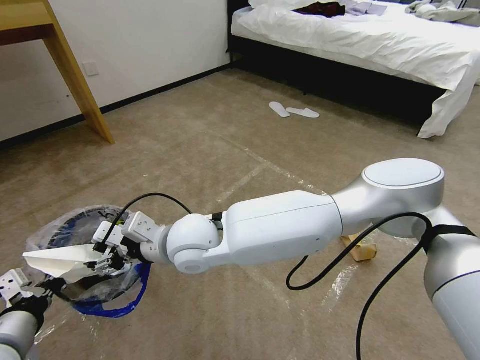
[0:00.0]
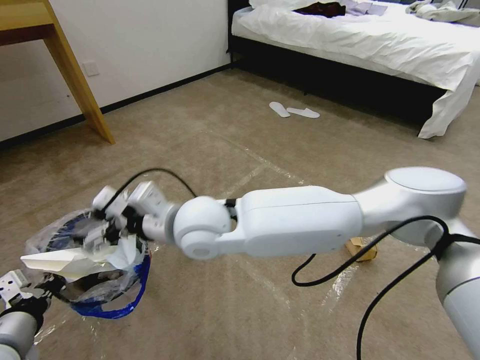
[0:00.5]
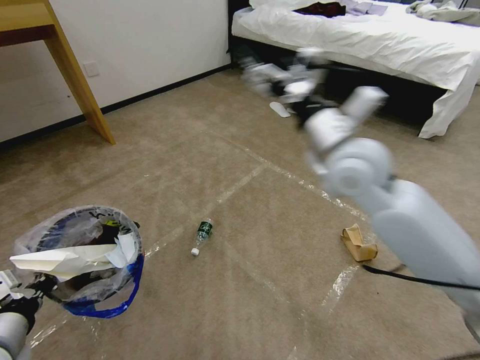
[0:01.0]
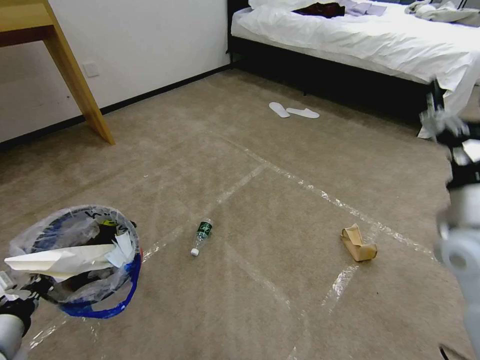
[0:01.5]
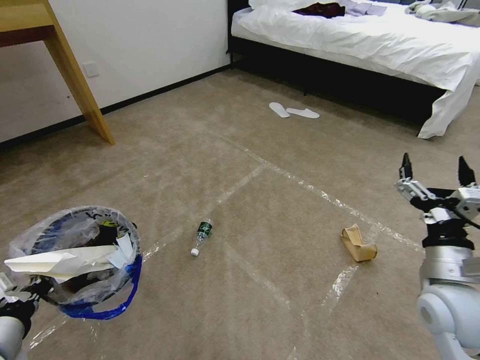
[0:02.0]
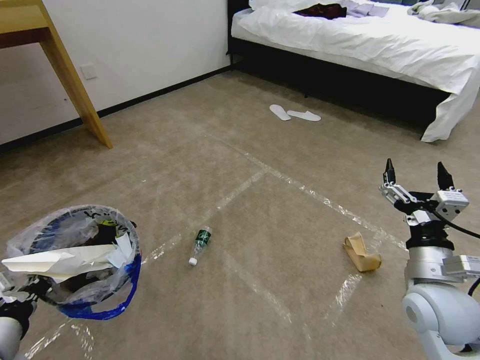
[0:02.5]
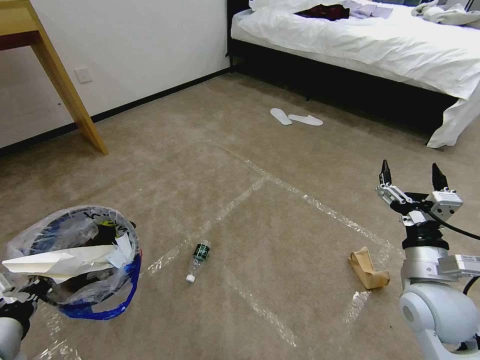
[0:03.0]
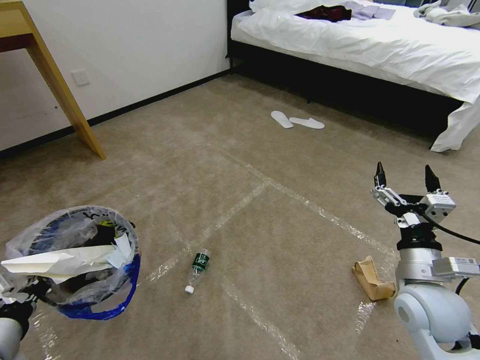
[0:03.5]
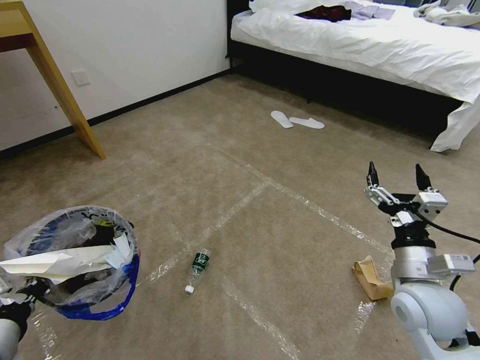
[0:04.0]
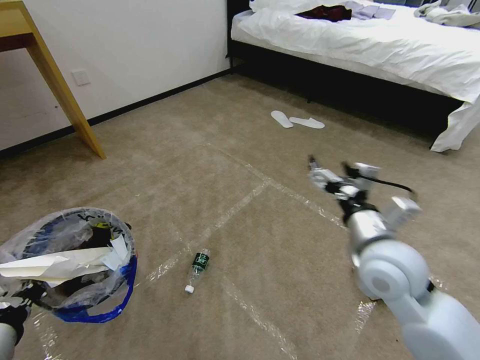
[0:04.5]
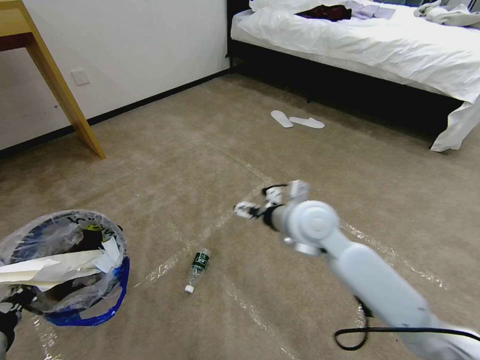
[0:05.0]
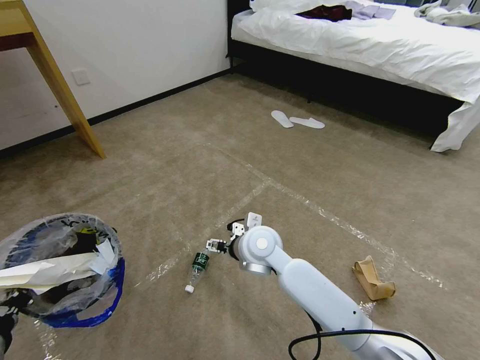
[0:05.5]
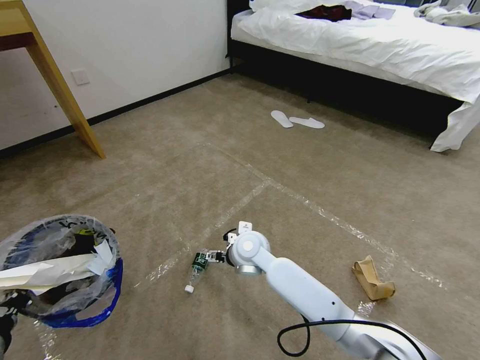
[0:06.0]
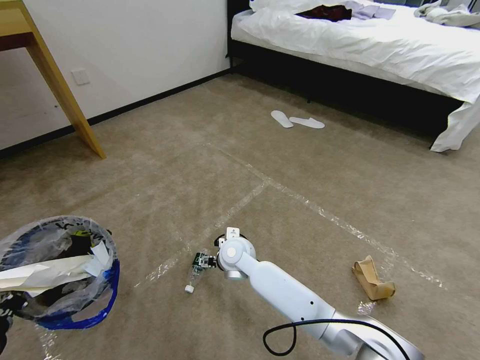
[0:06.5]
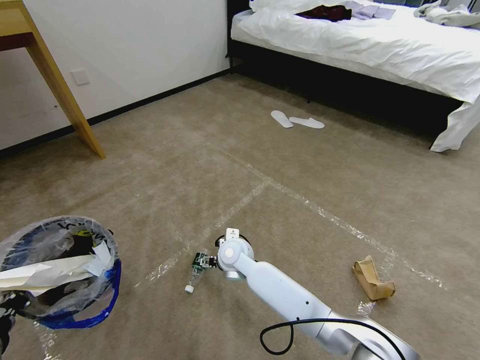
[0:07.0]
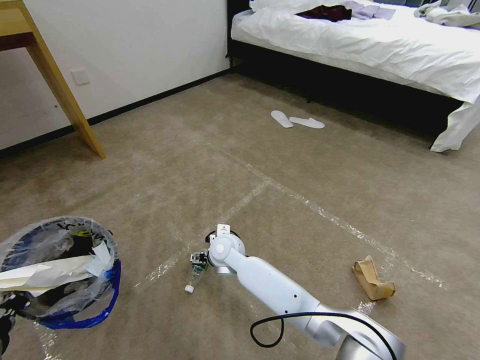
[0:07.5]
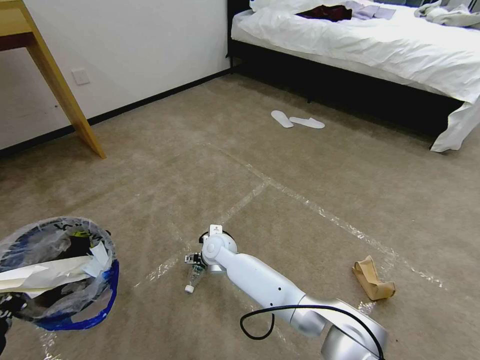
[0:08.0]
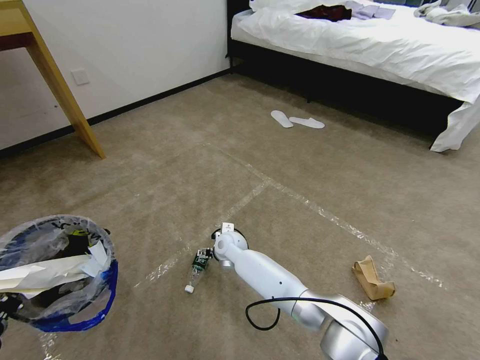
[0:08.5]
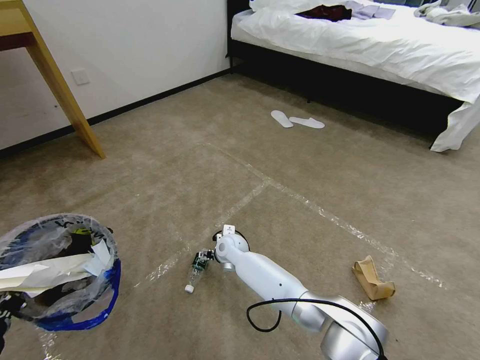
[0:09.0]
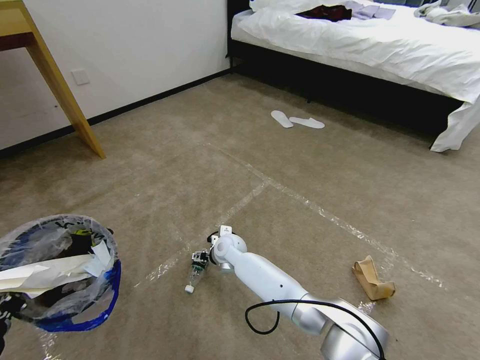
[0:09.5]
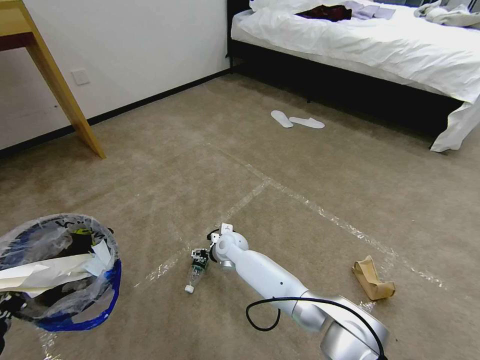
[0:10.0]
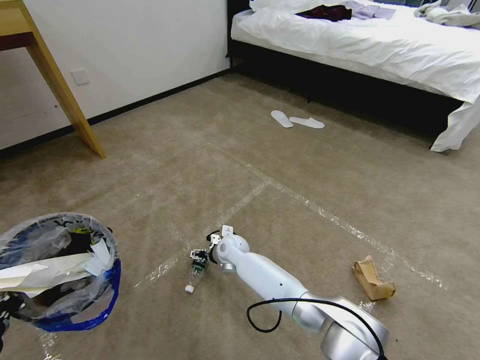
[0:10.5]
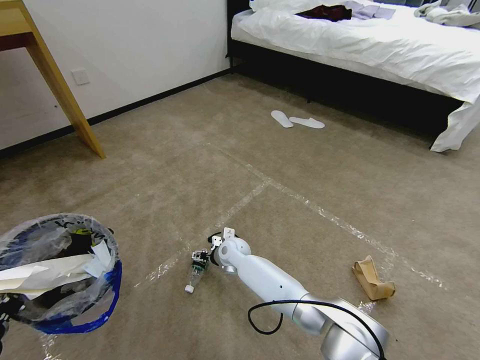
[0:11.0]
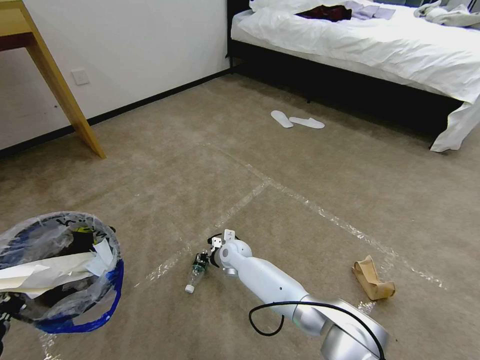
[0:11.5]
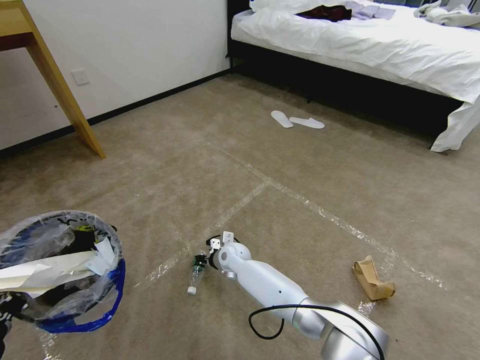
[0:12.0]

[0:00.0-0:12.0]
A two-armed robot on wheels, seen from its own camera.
Task of the whole recording: Pick up the trash bin and place the garbage on the floor into it.
0:00.0 to 0:02.0: The right gripper moves to the right, about 40 cm.
0:04.0 to 0:06.0: The right gripper is displaced to the left and forward by approximately 35 cm.
0:06.0 to 0:08.0: The right gripper goes about 10 cm to the left and downward.
0:08.0 to 0:10.0: The right gripper moves approximately 5 cm.
0:10.0 to 0:12.0: The right gripper closes its fingers.

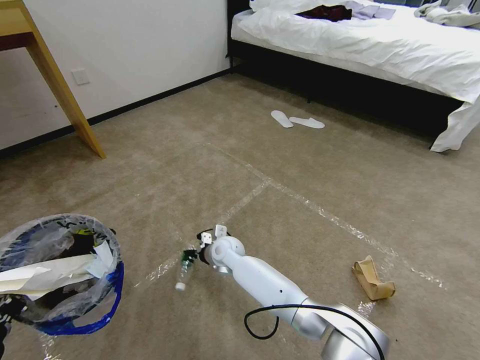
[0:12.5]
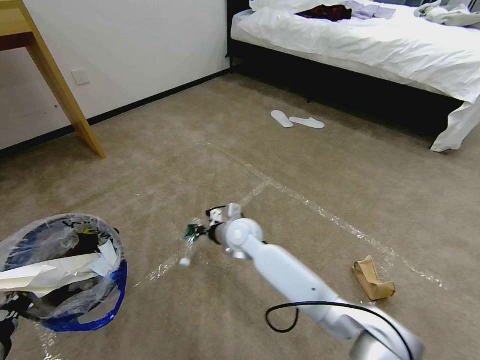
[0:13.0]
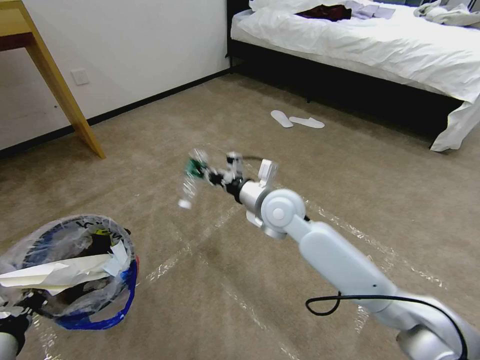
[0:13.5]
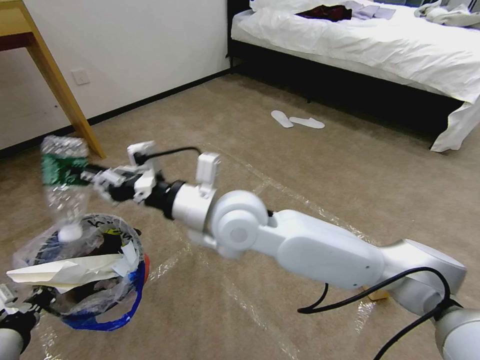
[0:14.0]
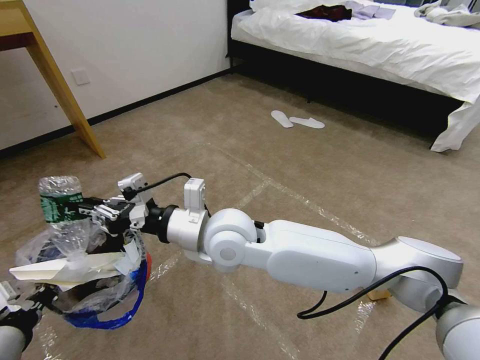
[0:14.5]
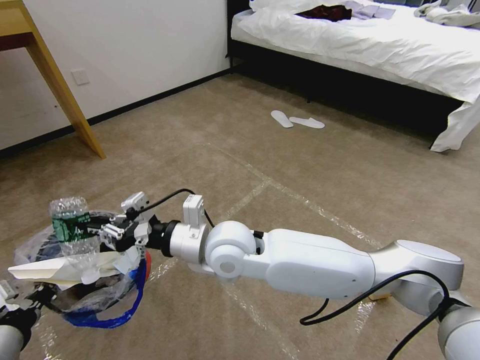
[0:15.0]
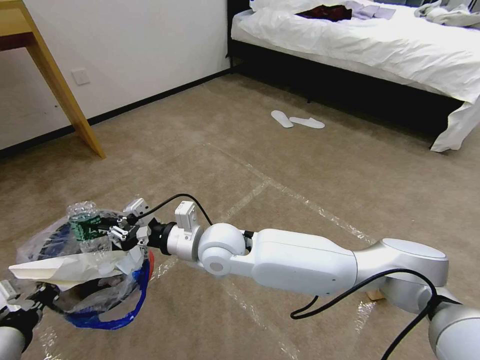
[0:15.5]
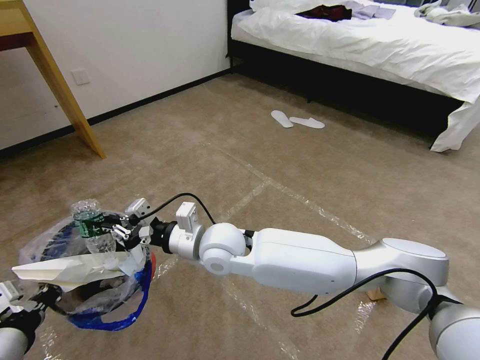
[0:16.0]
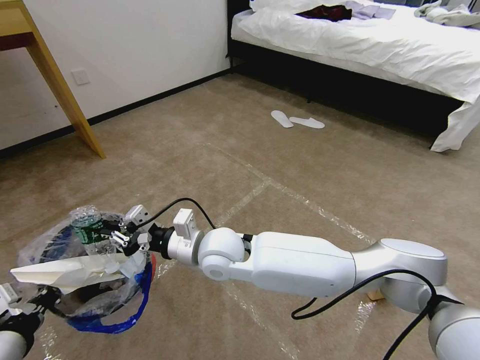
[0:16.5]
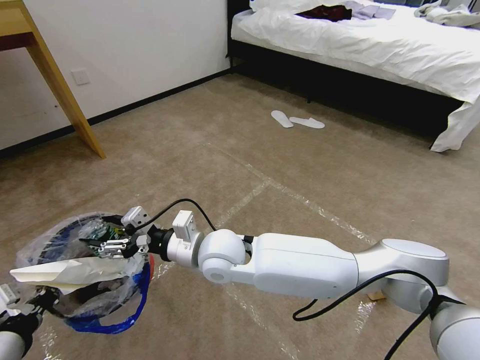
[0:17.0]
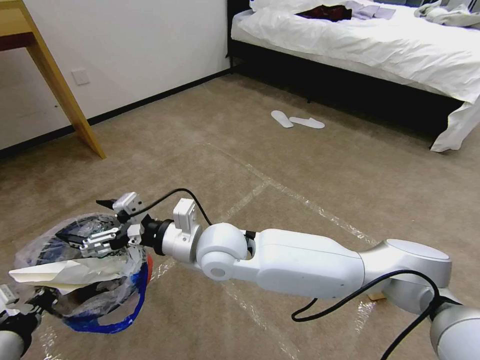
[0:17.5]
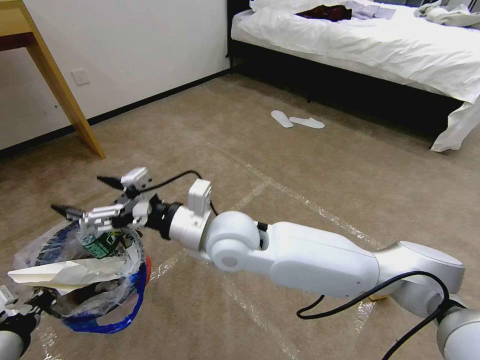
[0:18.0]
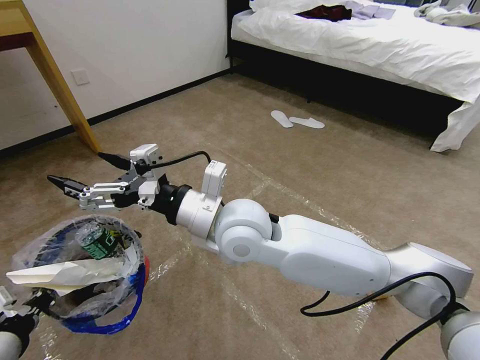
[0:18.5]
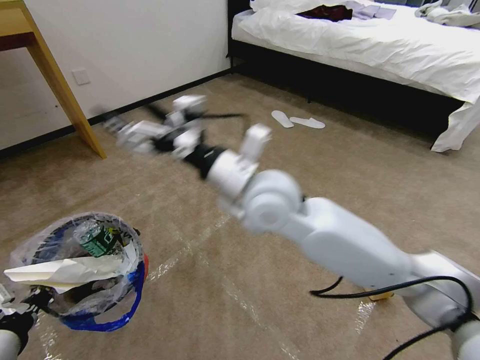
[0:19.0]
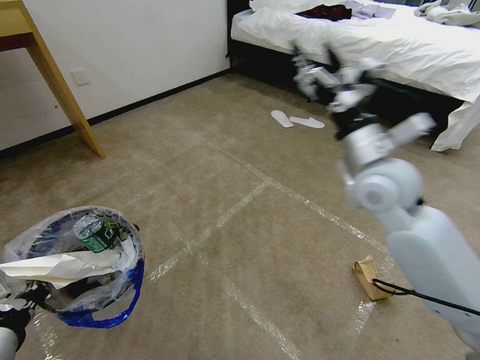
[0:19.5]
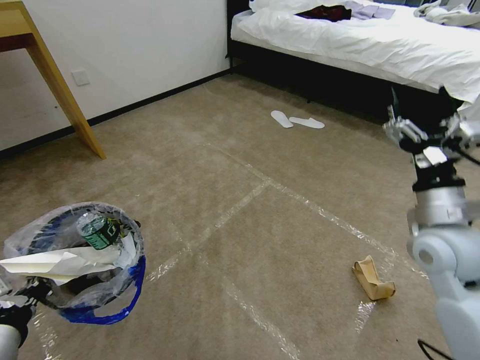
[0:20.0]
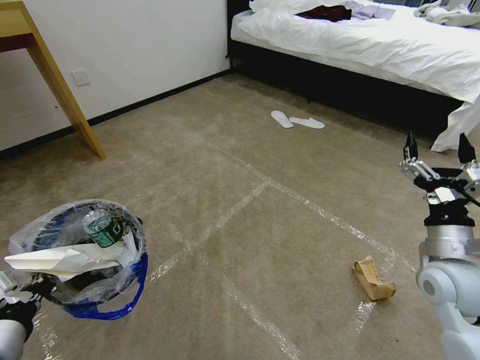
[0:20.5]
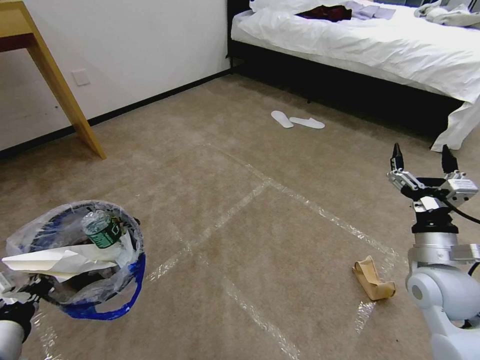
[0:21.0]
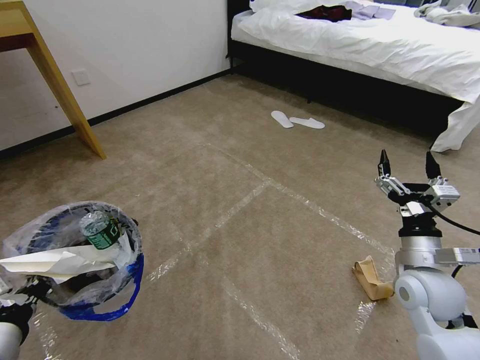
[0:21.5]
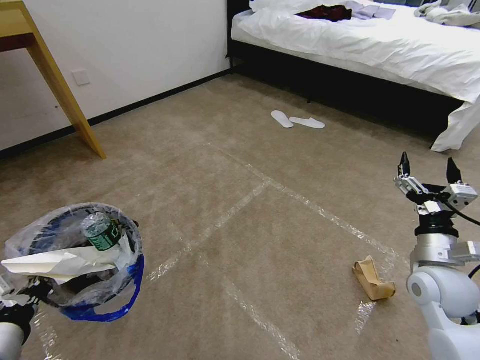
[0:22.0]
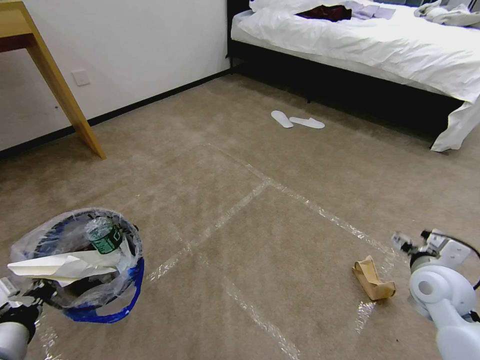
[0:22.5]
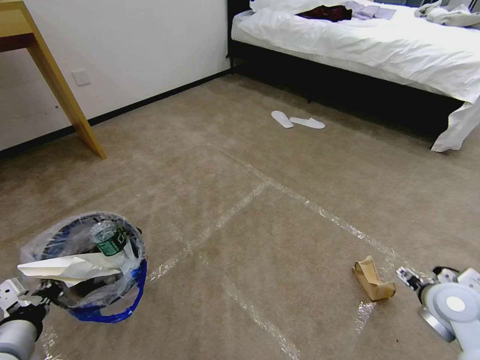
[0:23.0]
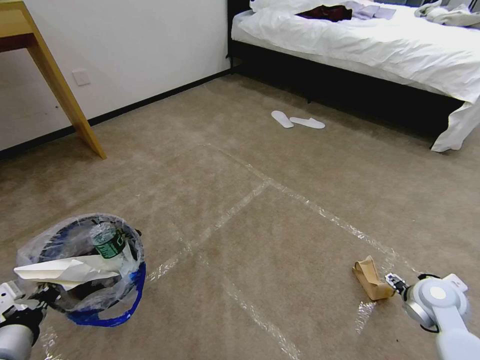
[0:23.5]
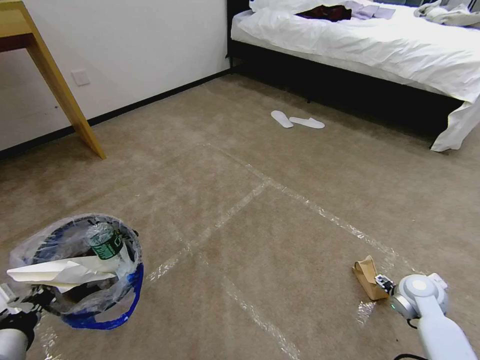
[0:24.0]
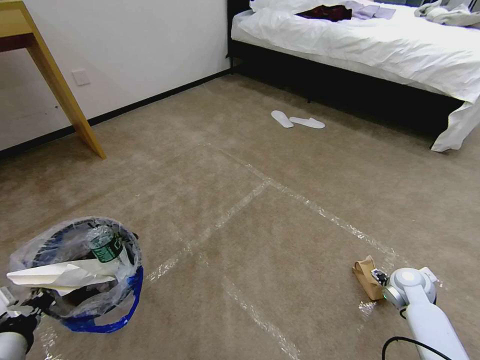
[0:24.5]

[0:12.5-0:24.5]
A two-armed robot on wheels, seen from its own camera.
Task of the whole recording: Pick up the trash bin and place the garbage on the floor into it.
0:12.5 to 0:14.5: The right gripper moves upward and backward, some 25 cm.
0:14.5 to 0:16.5: The right gripper shifts about 5 cm downward.
0:16.5 to 0:18.5: The right gripper heads upward, covering about 10 cm, and opens its fingers.
0:18.5 to 0:20.5: The right gripper shifts some 35 cm to the right.
0:20.5 to 0:22.5: The right gripper shifts about 5 cm downward.
0:22.5 to 0:24.5: The right gripper travels downward and forward by approximately 15 cm.

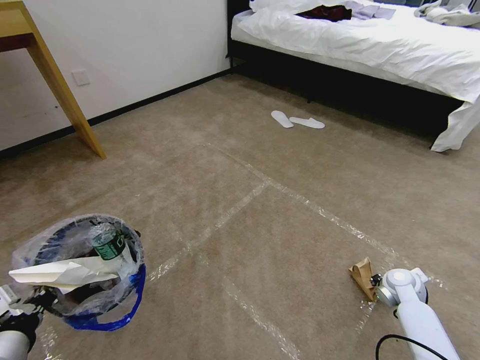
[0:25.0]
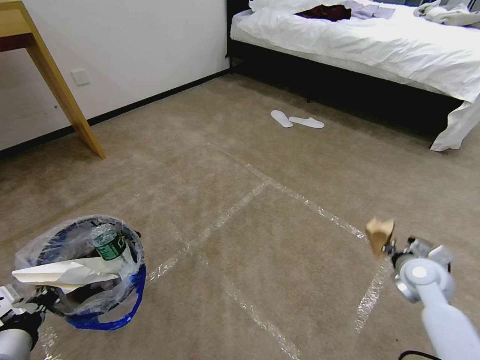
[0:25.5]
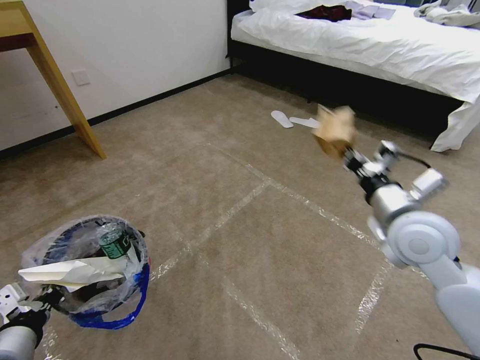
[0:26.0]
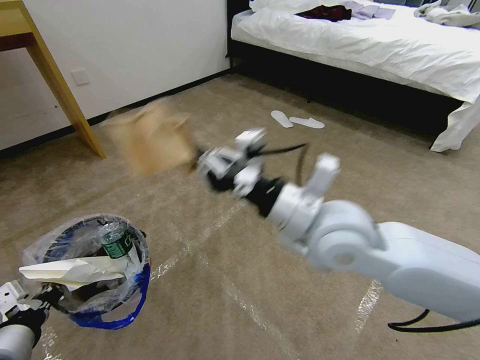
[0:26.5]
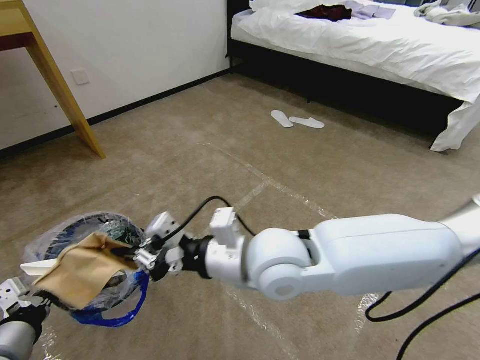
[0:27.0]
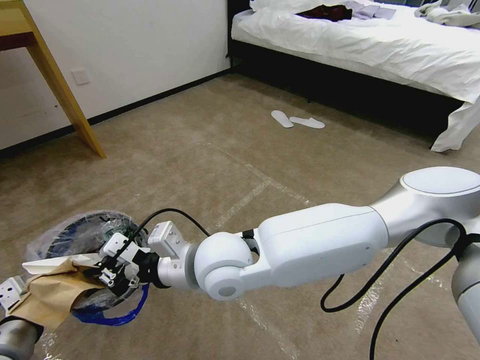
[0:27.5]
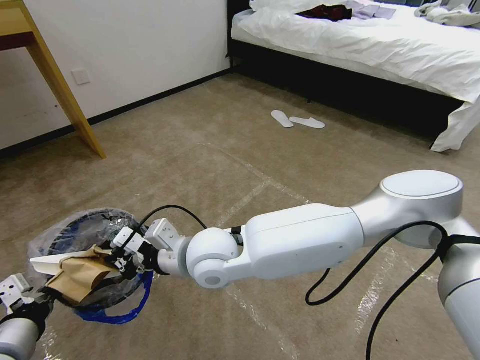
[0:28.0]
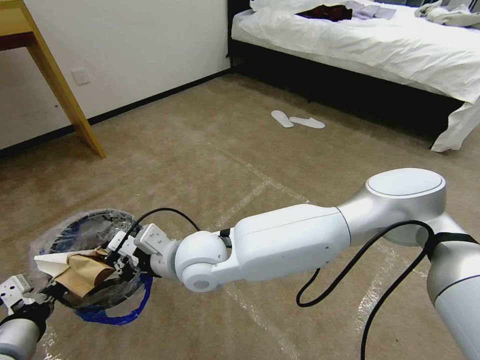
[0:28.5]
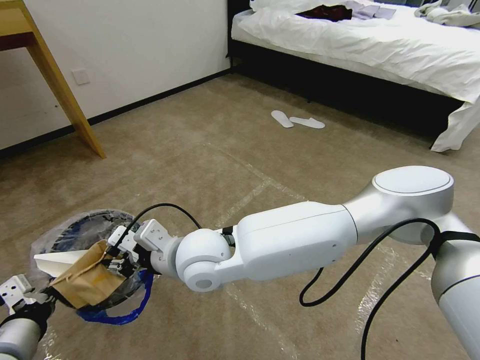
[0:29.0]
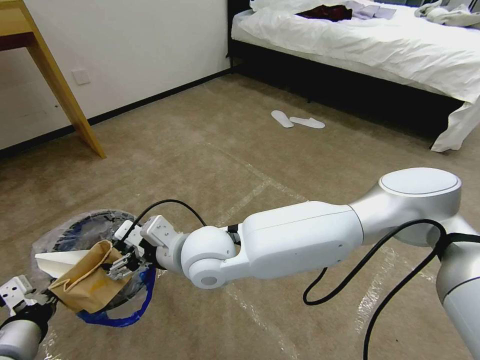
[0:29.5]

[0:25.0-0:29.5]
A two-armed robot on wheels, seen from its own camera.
Task of the whole recording: Pick up the trash bin and place the garbage on the floor into it.
0:25.0 to 0:27.0: The right gripper moves to the left and upward, roughly 50 cm, and closes.
0:27.0 to 0:29.5: The right gripper shifts roughly 10 cm to the left, and opens.